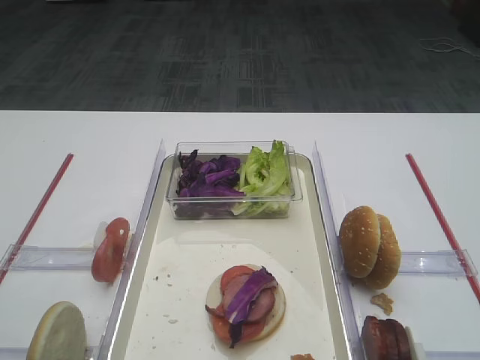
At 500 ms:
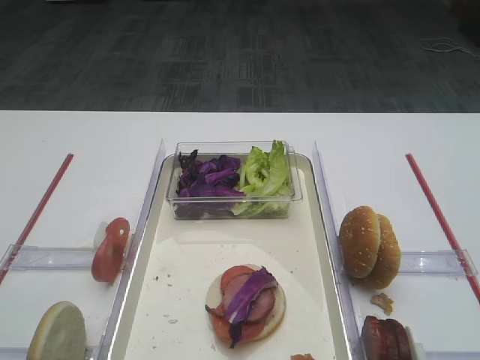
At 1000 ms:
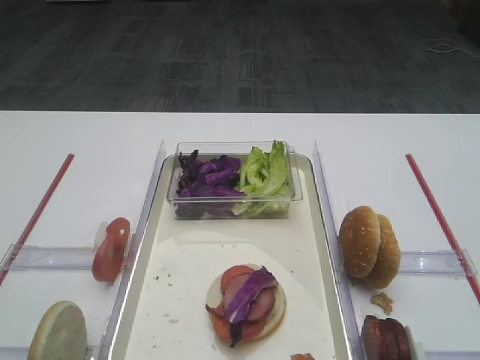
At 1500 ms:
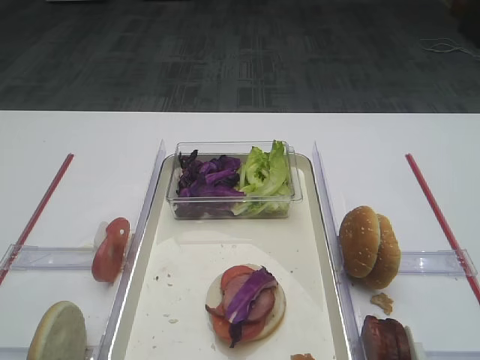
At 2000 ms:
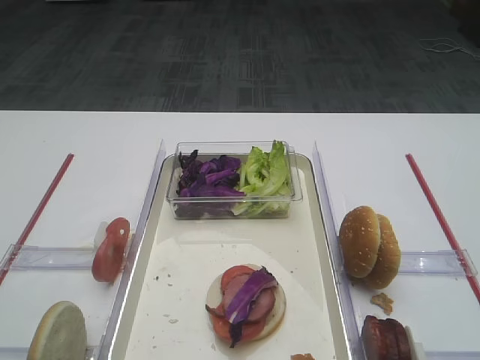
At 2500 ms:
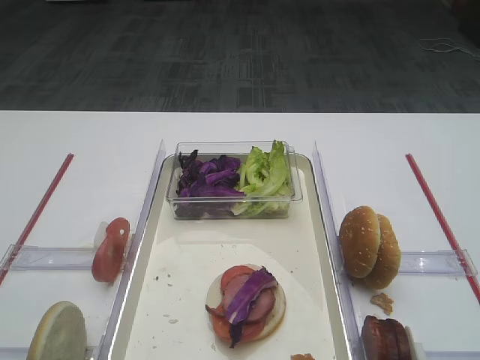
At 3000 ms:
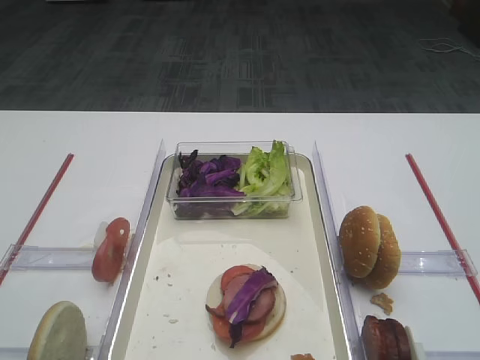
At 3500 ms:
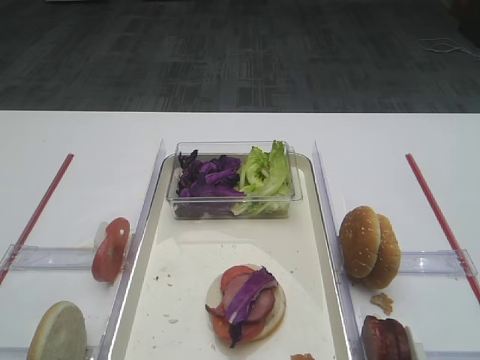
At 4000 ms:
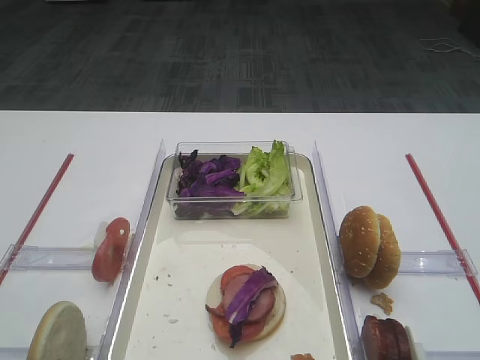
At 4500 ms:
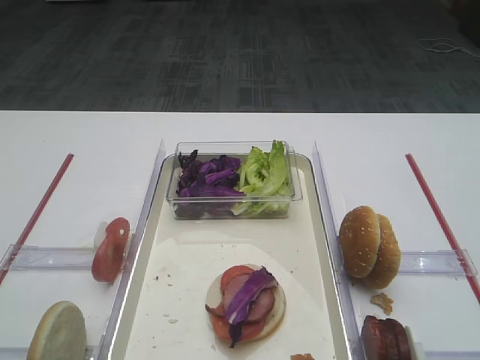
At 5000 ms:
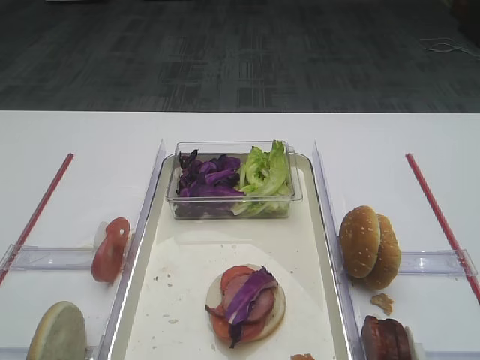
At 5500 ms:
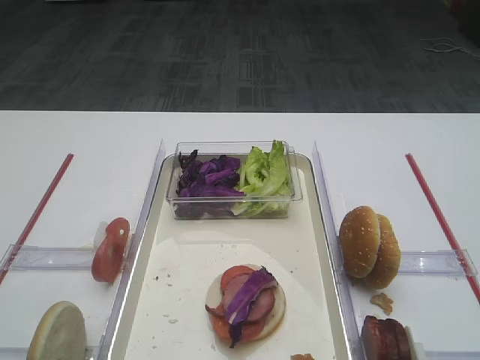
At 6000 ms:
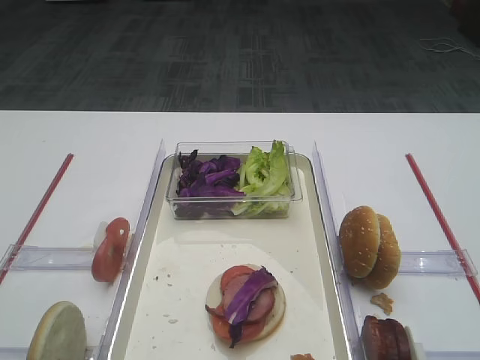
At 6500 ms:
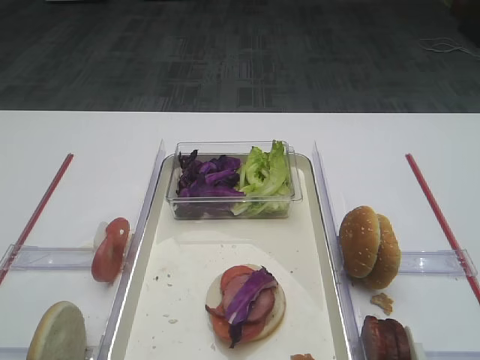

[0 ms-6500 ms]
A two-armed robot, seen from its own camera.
2000 ms to 6500 ms: Neither gripper changes place.

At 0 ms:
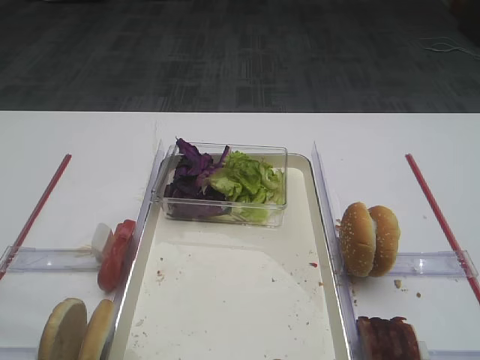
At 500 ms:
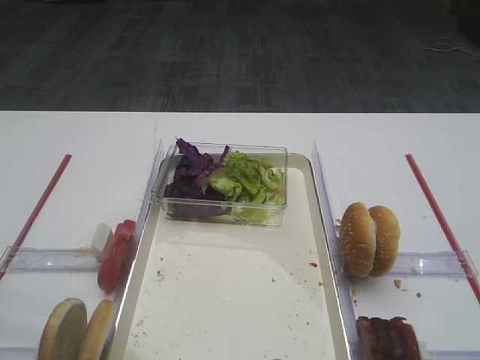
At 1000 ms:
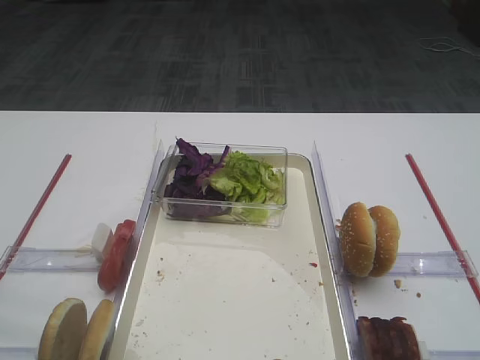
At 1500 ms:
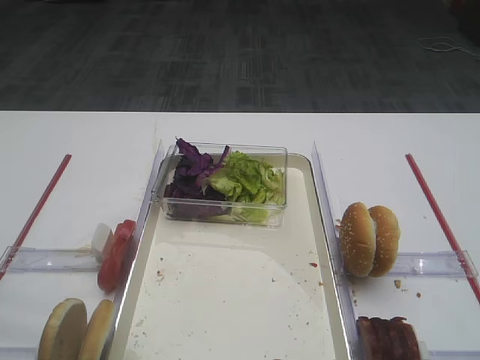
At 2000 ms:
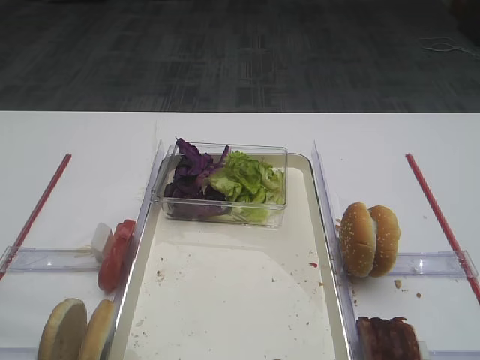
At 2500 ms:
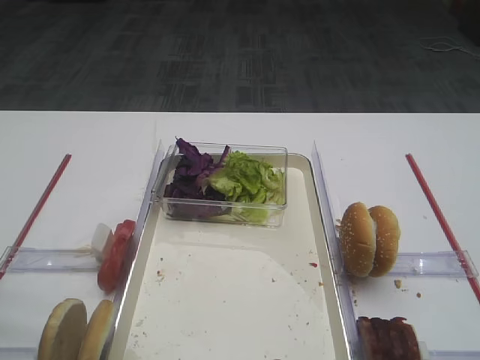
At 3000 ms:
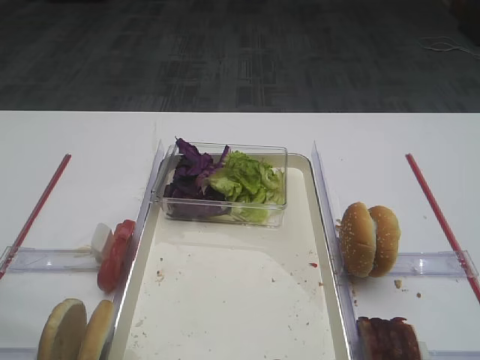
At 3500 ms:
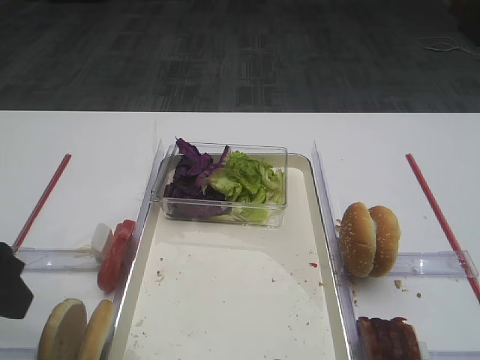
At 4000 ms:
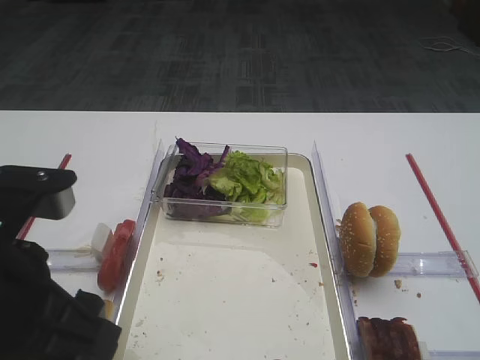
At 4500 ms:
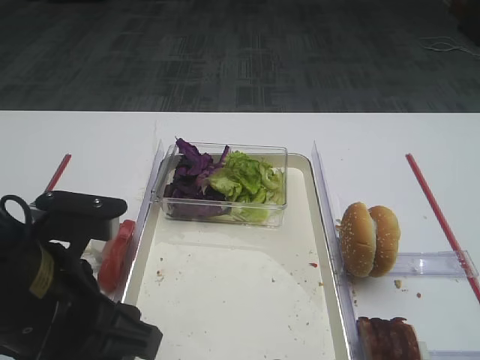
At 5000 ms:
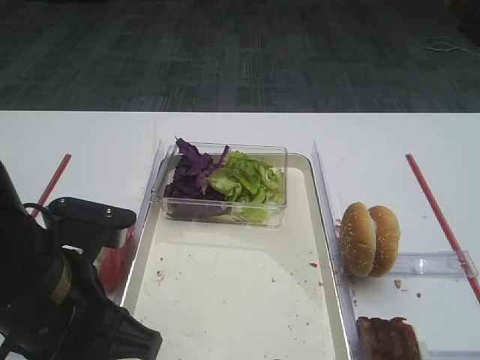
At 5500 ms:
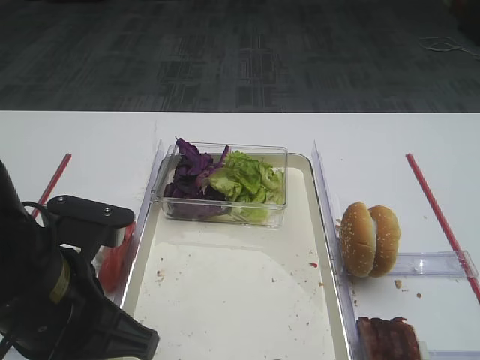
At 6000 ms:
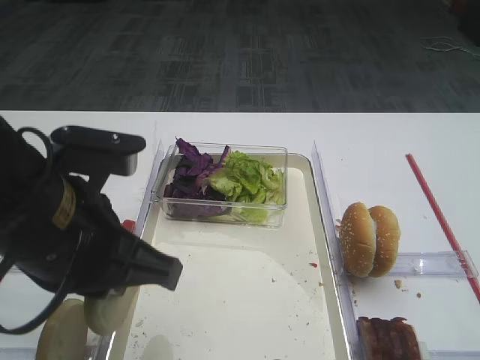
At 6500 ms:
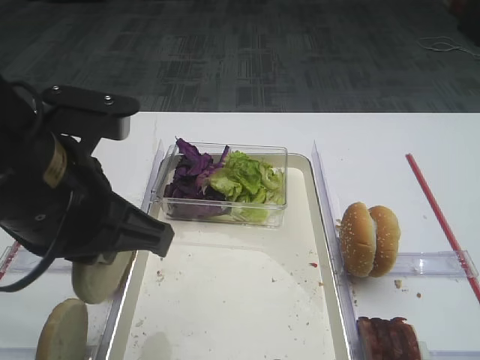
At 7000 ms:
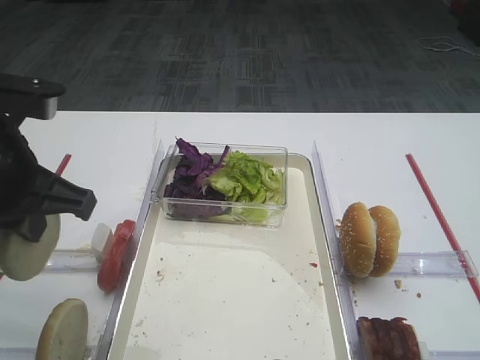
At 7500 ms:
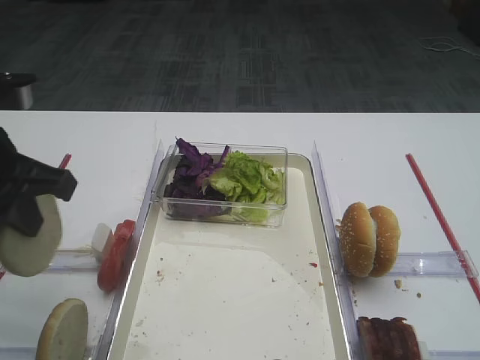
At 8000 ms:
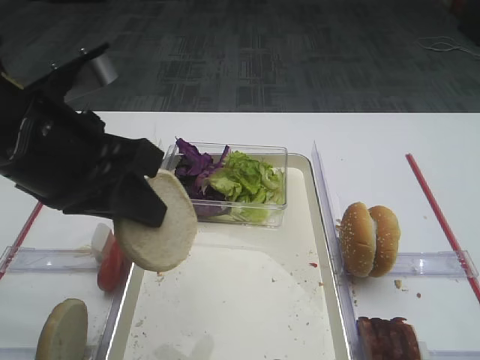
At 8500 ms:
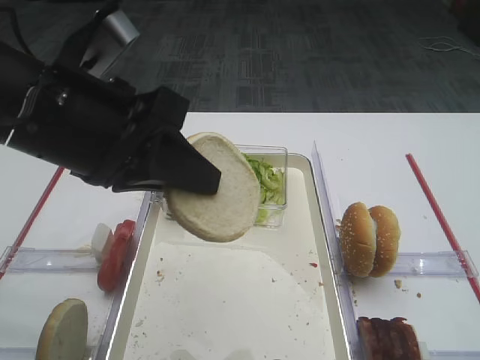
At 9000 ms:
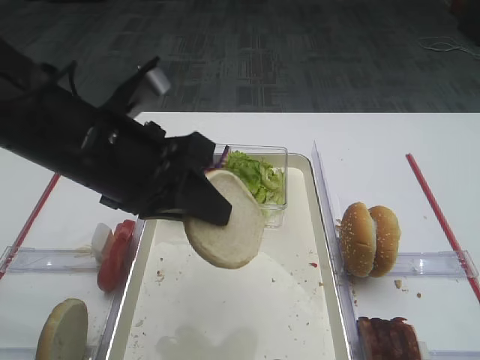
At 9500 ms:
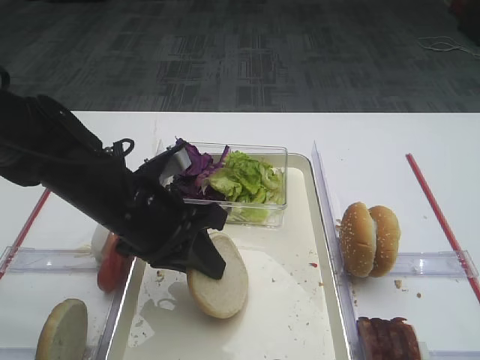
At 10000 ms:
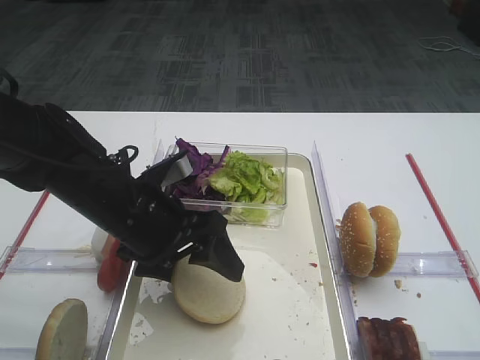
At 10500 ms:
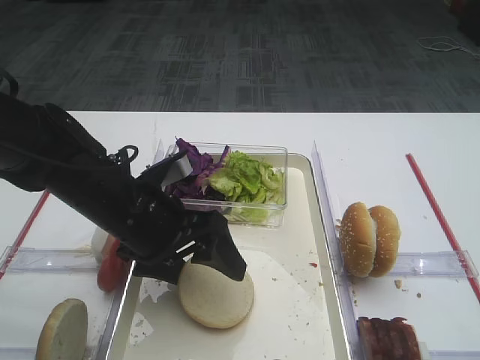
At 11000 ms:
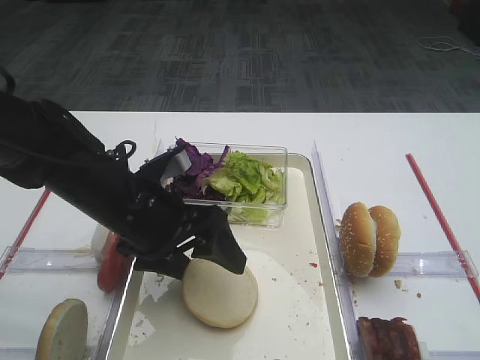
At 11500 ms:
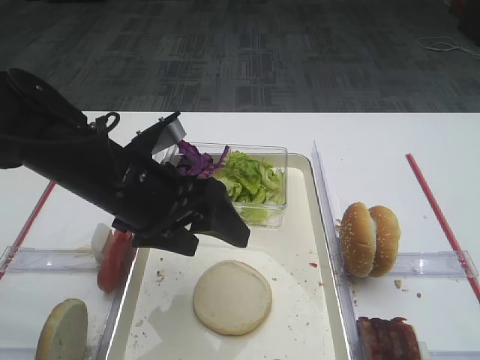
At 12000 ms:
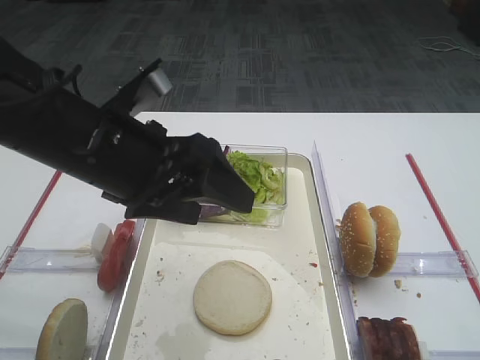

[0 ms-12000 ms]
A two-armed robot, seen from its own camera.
Step, 0 ms to 5500 ms: Pick up the bread slice with the left gripper.
Step, 6000 ms to 11000 ms: Place the bread slice on the tray with the left gripper.
2000 ms to 4000 ms: The left gripper heads to the right and forward, covering about 15 cm.
4000 ms to 6000 ms: The left gripper ends up roughly 5 cm from where it was, and closes up.
6000 ms to 8000 ms: The left gripper goes to the left and returns, some 10 cm each way.
8000 ms to 10000 ms: The left gripper is displaced downward and forward by approximately 15 cm, and opens its fingers.
10000 ms to 12000 ms: The left gripper goes about 10 cm upward.

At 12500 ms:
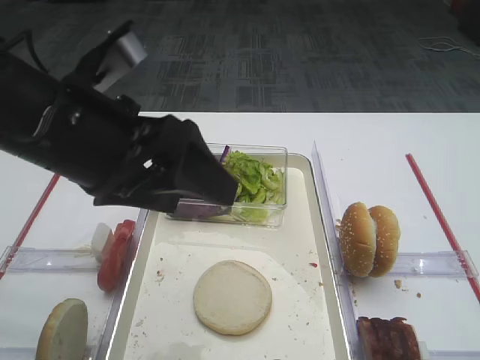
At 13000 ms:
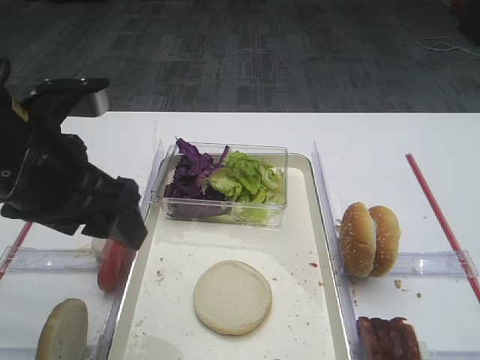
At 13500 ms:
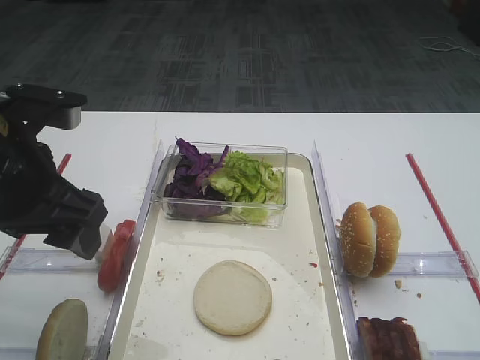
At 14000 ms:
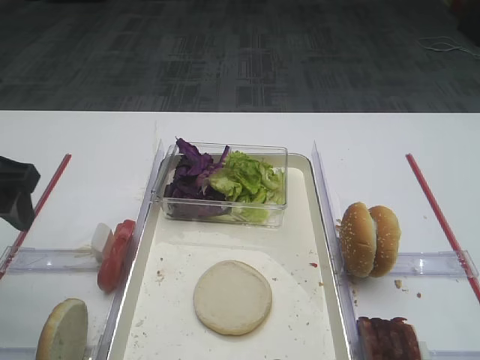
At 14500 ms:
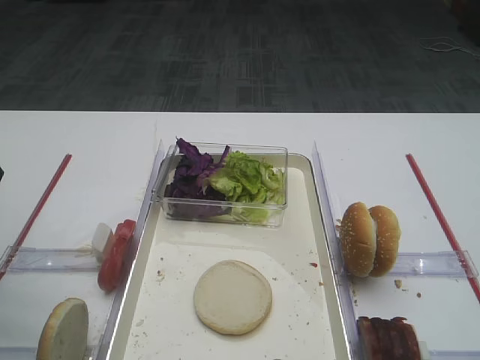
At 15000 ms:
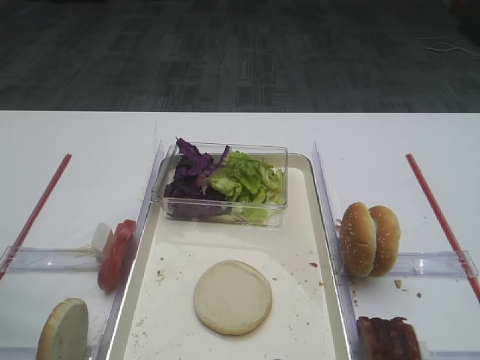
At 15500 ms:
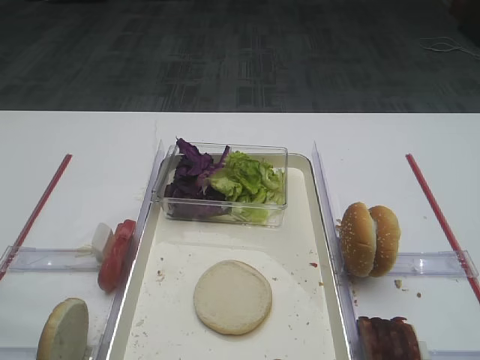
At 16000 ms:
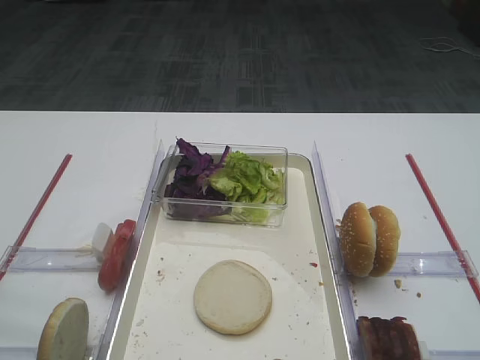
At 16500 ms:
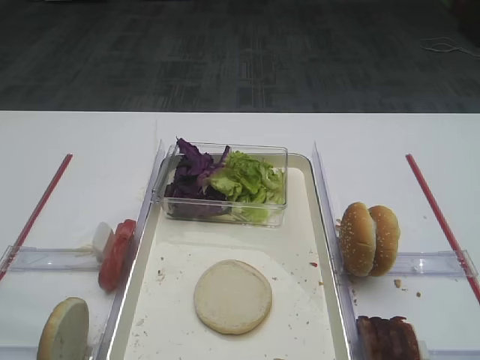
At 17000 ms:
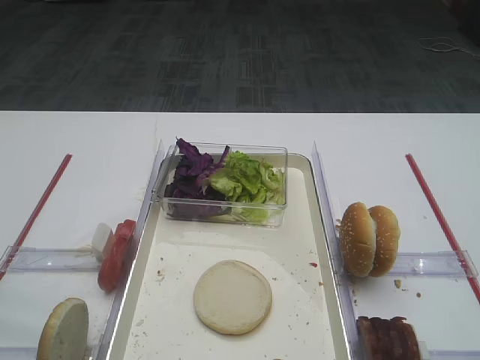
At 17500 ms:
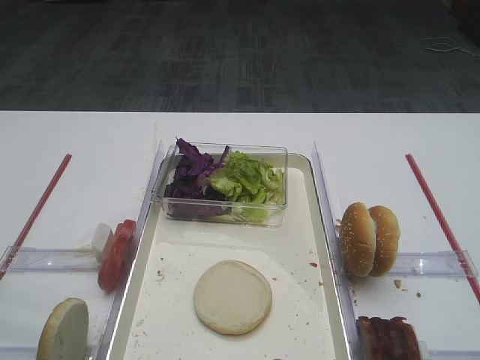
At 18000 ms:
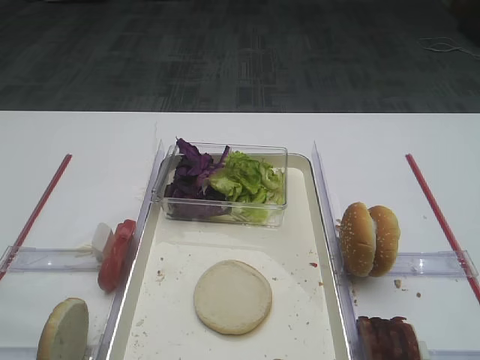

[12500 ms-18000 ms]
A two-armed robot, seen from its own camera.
12500 ms to 14500 ms: The left gripper heads to the left, covering roughly 15 cm.
14500 ms to 16000 ms: The left gripper moves backward, some 20 cm.
